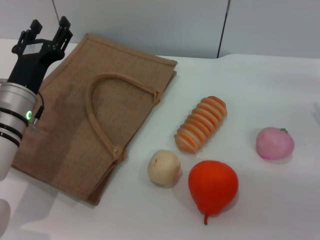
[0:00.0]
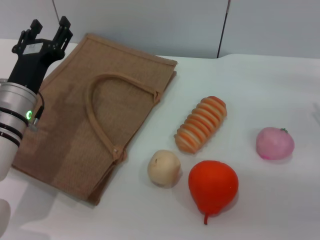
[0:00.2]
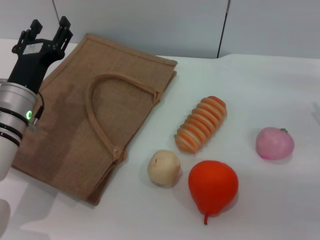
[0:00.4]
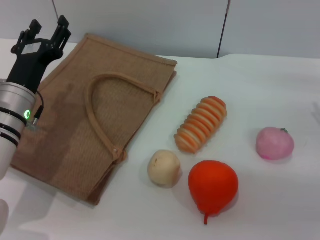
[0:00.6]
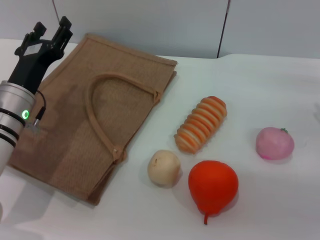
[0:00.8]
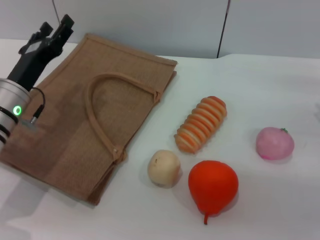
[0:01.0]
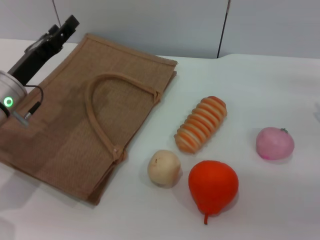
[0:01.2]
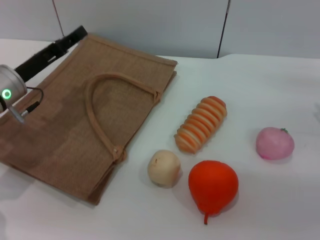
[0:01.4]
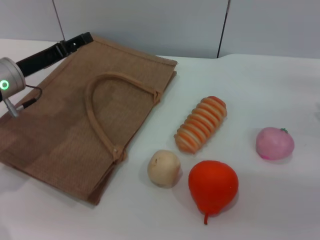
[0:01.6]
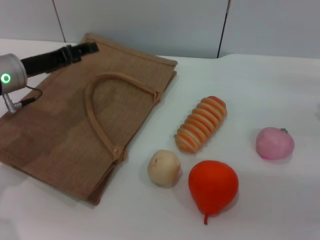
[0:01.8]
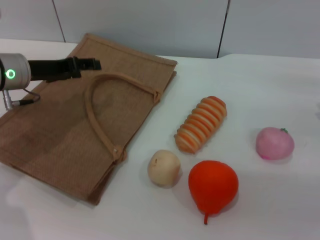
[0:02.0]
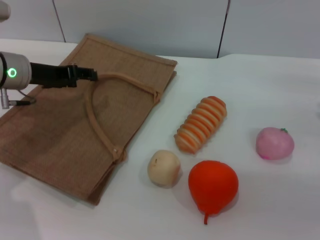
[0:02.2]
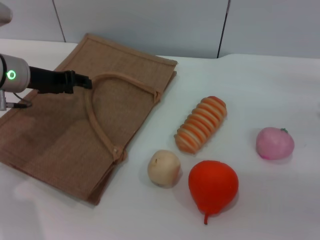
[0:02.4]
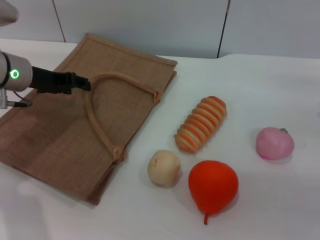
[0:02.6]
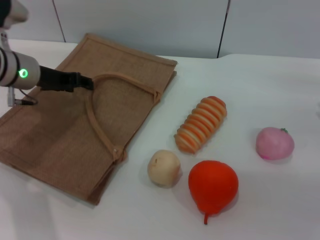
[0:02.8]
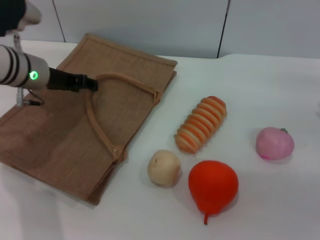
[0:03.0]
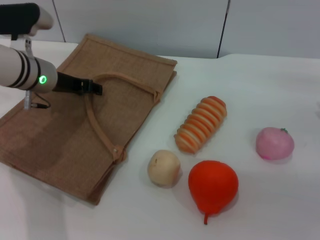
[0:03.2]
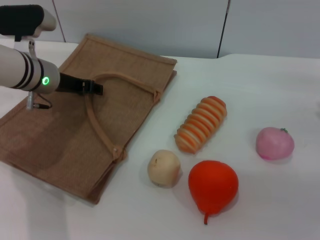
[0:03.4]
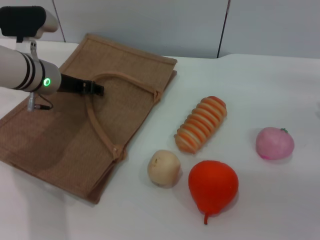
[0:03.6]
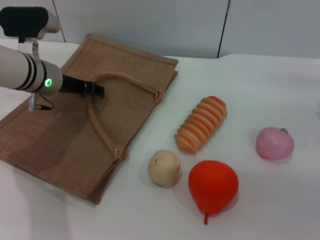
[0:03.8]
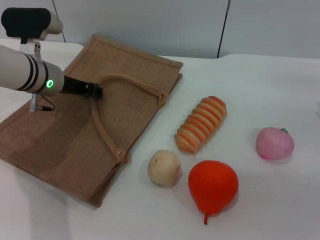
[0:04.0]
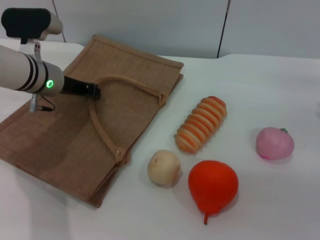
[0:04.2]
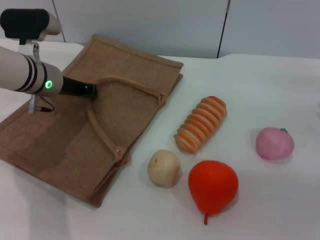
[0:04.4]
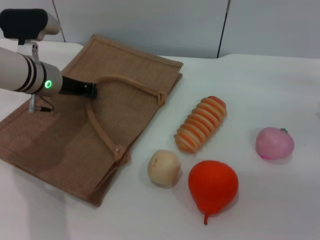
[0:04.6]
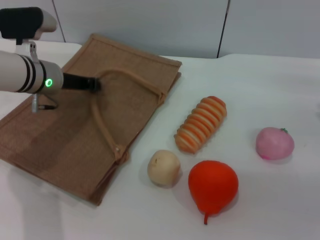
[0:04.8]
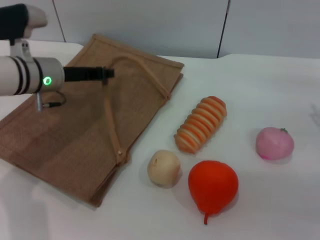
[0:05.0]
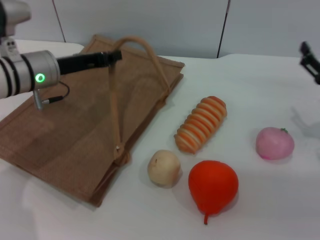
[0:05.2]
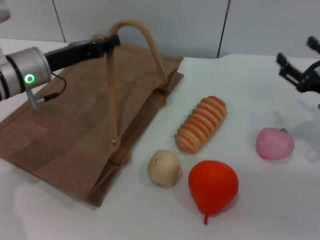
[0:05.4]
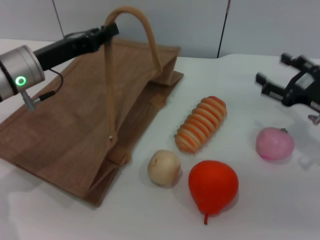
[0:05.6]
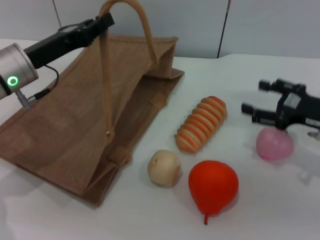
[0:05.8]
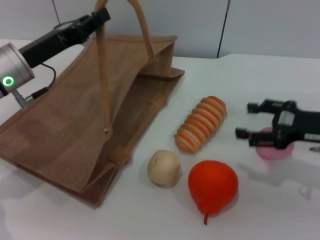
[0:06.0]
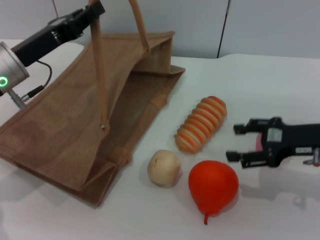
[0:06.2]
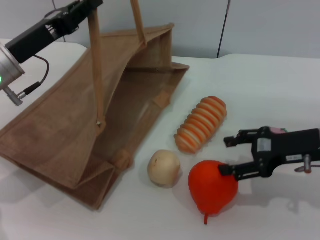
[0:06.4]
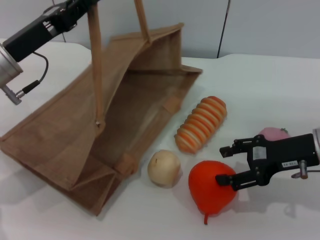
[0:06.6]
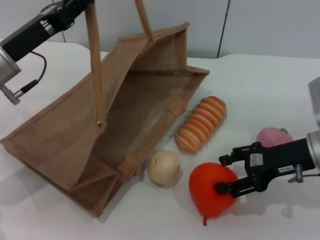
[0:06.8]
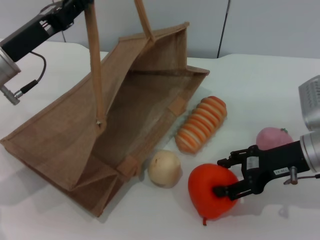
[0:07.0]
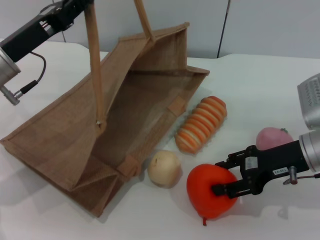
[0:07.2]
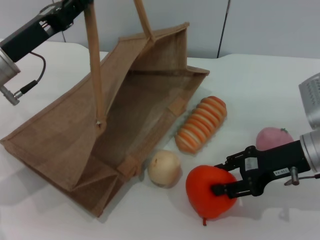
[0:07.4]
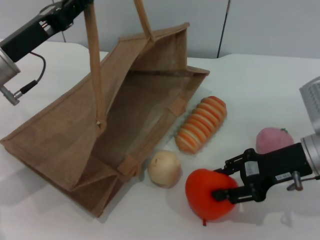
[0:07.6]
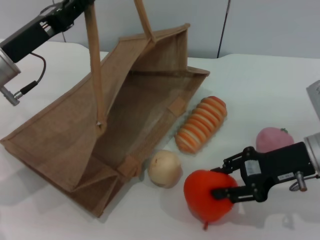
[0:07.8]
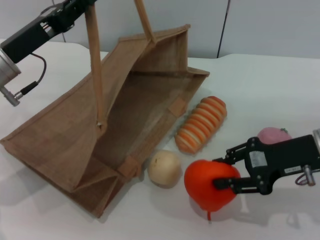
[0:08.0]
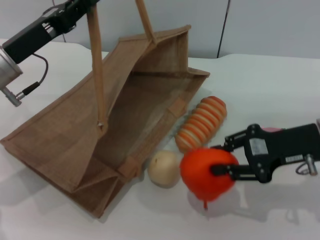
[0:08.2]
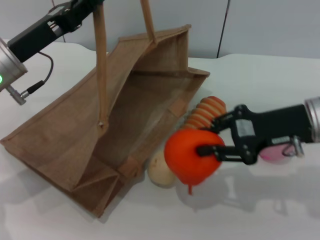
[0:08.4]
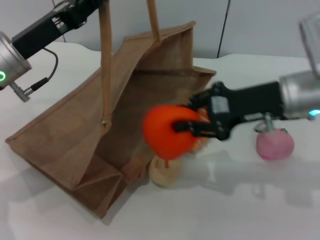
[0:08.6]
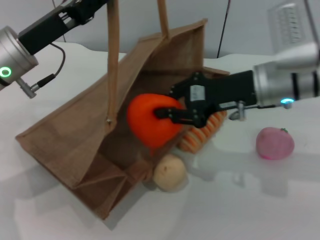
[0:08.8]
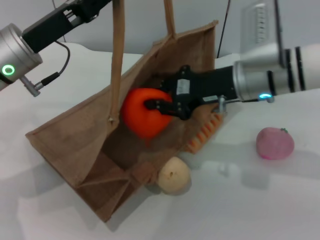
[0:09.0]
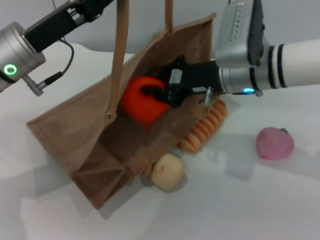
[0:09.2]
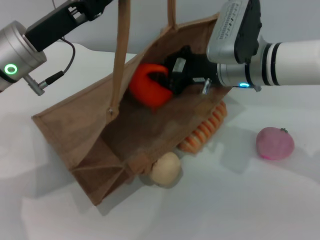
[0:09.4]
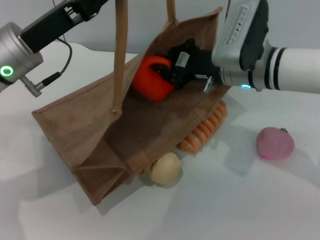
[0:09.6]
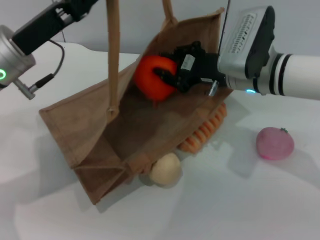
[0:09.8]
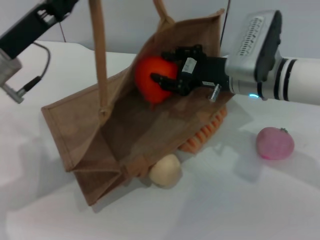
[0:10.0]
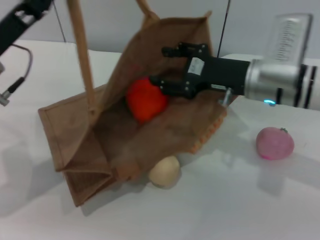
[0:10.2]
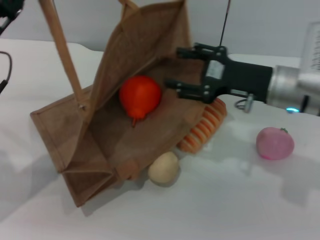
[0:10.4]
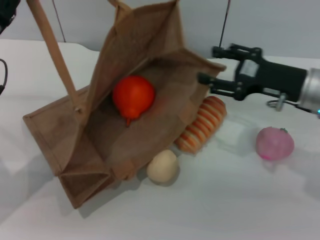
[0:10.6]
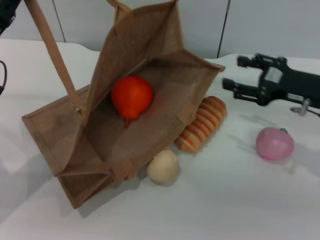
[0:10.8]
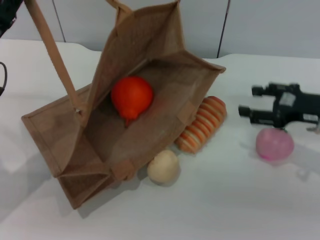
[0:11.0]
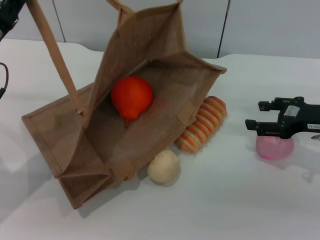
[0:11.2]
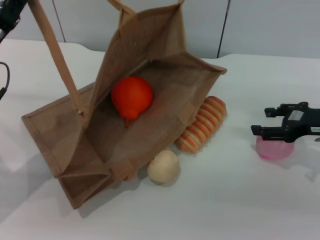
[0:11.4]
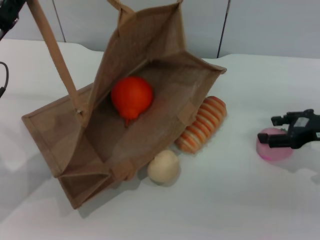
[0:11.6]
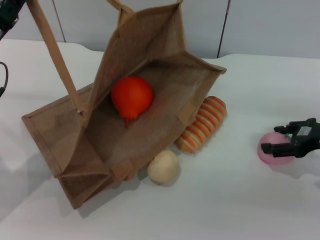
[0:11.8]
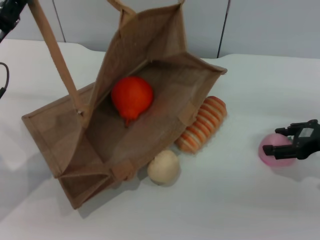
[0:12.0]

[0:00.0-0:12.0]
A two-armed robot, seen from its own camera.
Task of the whole recording: pick up the orange and peach from the table and place it in the brown handbag.
Step, 0:00.0 to 0:05.2: Lift the woven bag with the left gripper to open it.
Step, 0:05.4 to 0:08.0: Pick up the orange with the right gripper.
Step, 0:08.2 to 0:10.0: Place the orange into the woven bag with the right gripper.
0:00.0 to 0:01.6: The left gripper ends up approximately 5 cm from where it was.
0:01.6 to 0:03.0: The left gripper moves approximately 5 cm.
0:03.0 to 0:04.4: The left gripper closes its fingers.
0:04.4 to 0:06.0: The left gripper moves backward, about 5 cm.
0:06.0 to 0:07.6: The right gripper moves to the left, approximately 5 cm, and closes up.
0:07.6 to 0:09.0: The right gripper moves to the left, forward and upward, about 15 cm, and closes.
0:09.0 to 0:10.4: The right gripper goes about 5 cm to the right, and opens. The left gripper travels to the left by some 5 cm.
0:10.4 to 0:12.0: The right gripper is displaced to the right by some 15 cm.

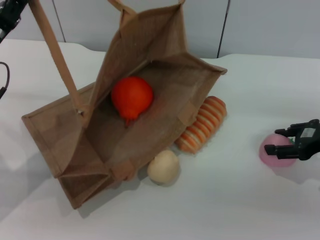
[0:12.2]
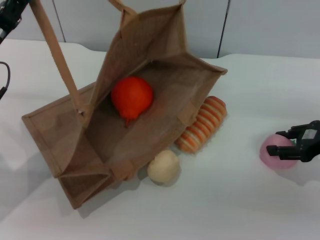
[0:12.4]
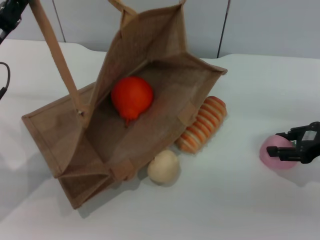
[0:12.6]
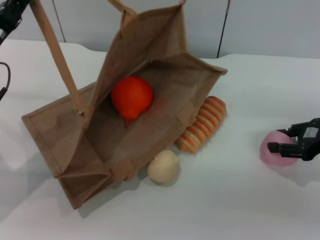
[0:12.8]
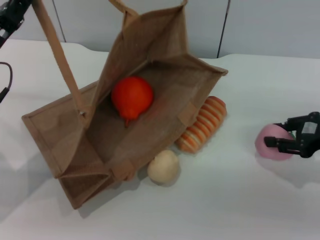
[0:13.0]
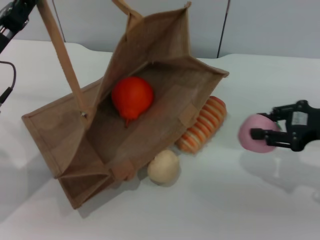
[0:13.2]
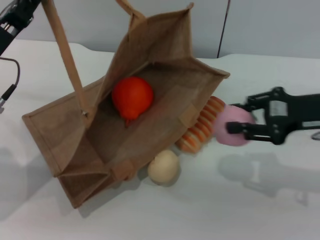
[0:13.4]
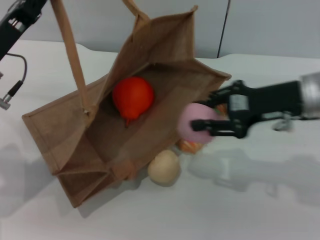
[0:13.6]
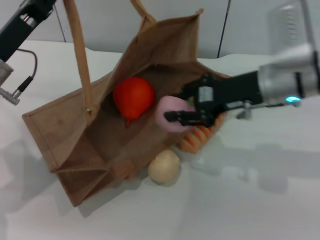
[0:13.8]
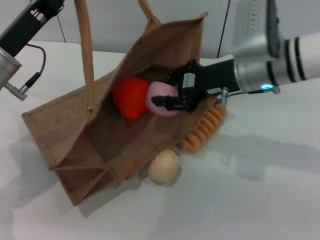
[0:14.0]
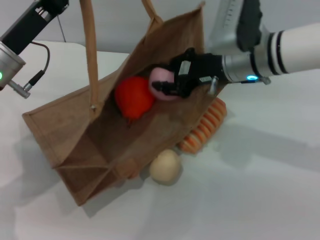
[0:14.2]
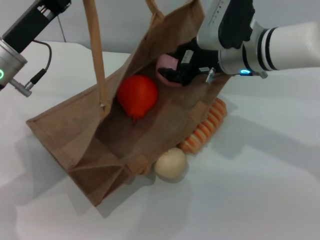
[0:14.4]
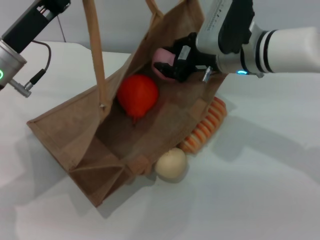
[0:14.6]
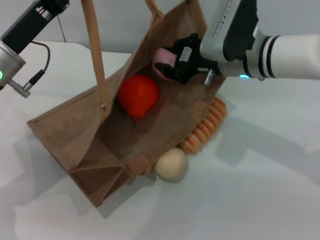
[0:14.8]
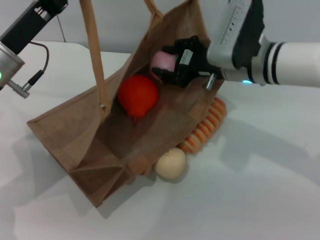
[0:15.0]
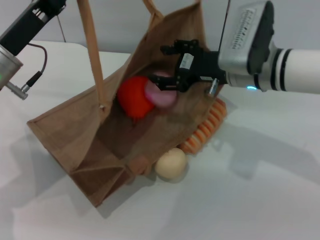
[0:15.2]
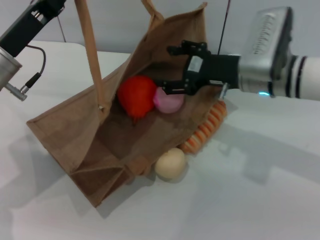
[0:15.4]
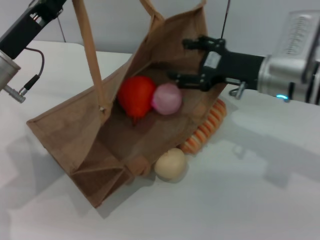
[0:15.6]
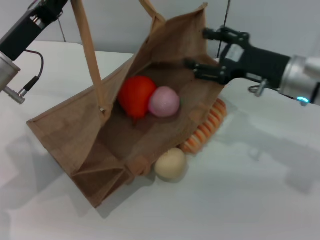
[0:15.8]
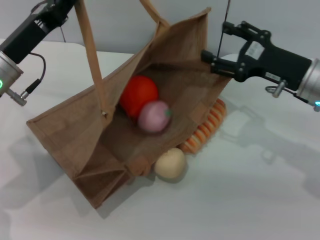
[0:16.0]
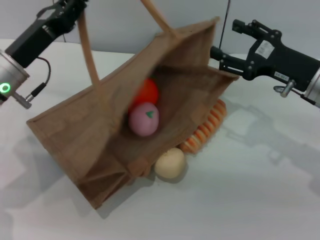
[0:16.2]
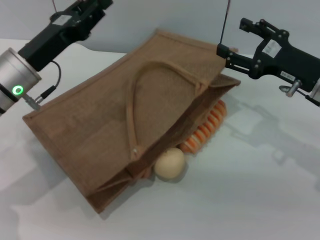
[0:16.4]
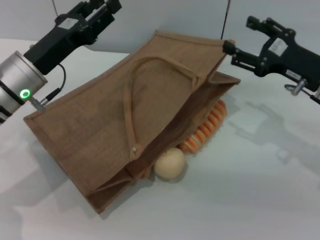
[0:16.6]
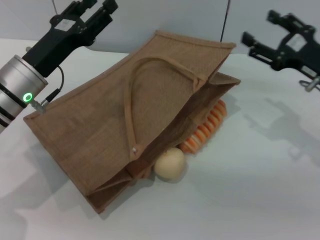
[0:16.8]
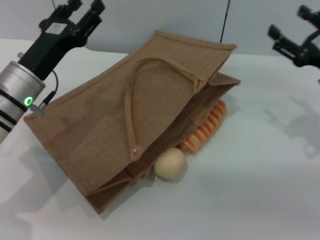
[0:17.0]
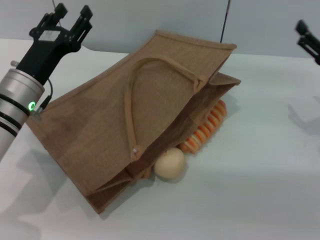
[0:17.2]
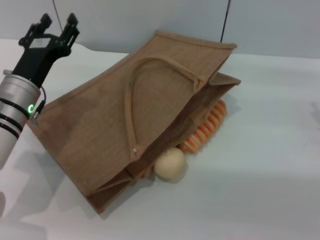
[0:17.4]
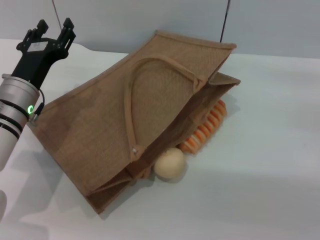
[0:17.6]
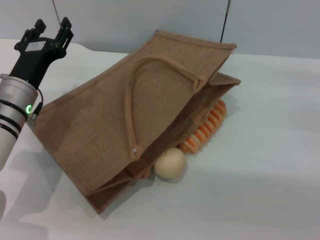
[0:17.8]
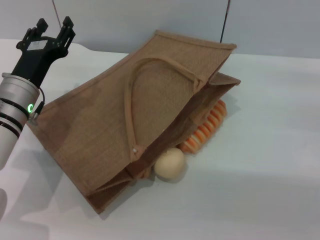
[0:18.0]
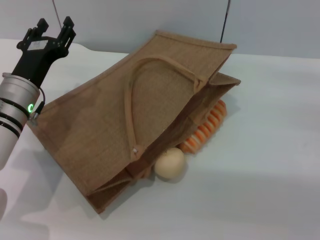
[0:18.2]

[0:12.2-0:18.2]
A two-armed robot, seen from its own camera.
Task of the whole recording: pick up the orange and peach from the table and place it in the brown handbag.
Step, 0:13.2 to 0:15.4: Place the peach into the woven bag with the right gripper.
Step, 0:15.6 to 0:16.6: Lower the woven bag with the left gripper to close it.
0:12.2 to 0:13.8: The right gripper goes some 15 cm to the left, and closes its fingers.
0:15.2 to 0:16.6: The right gripper goes roughly 10 cm to the right, and opens.
0:16.6 to 0:18.2: The right gripper shifts approximately 10 cm to the right. Meanwhile the left gripper ends up about 5 cm from where it was, and opens its fingers.

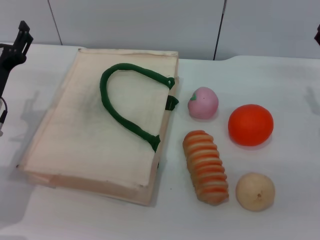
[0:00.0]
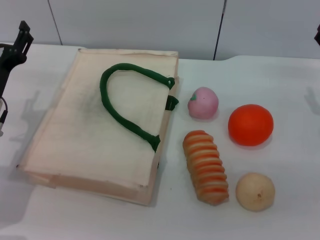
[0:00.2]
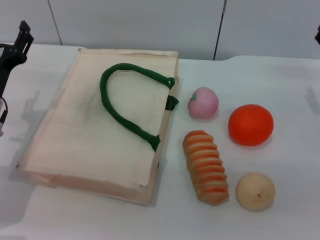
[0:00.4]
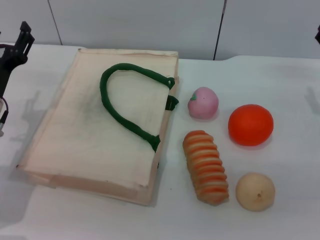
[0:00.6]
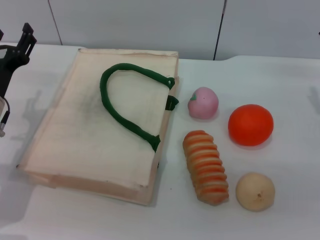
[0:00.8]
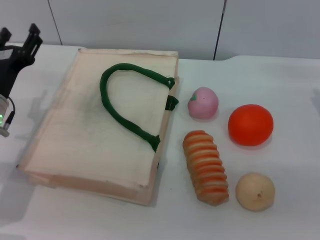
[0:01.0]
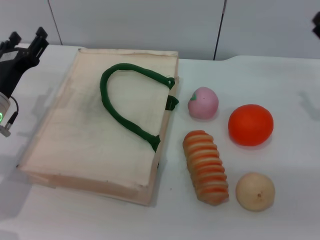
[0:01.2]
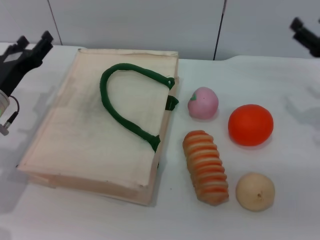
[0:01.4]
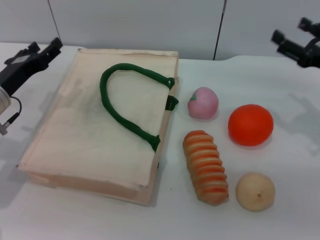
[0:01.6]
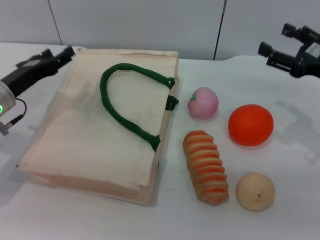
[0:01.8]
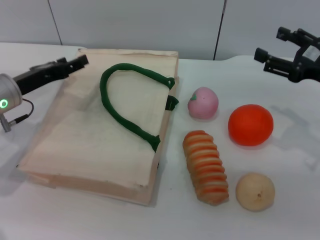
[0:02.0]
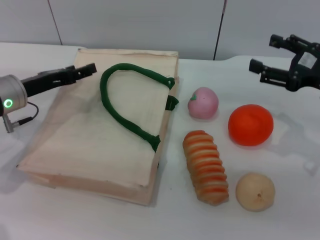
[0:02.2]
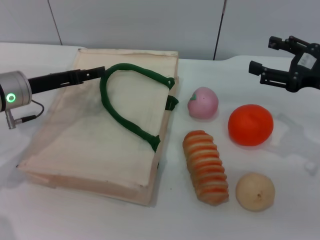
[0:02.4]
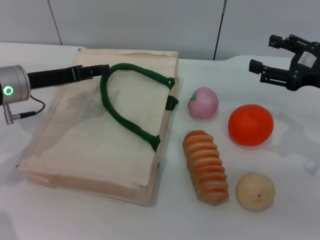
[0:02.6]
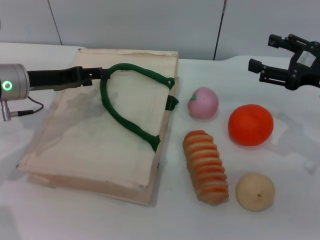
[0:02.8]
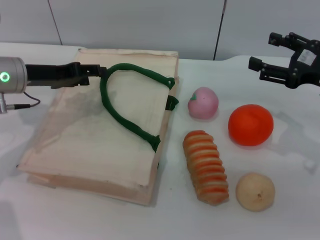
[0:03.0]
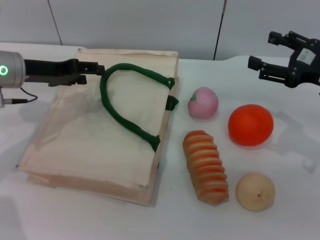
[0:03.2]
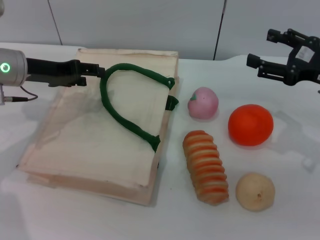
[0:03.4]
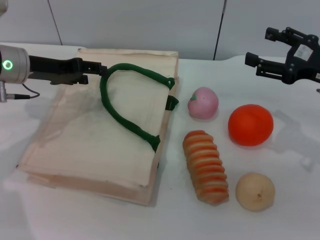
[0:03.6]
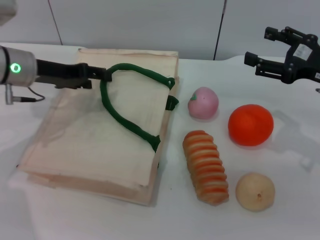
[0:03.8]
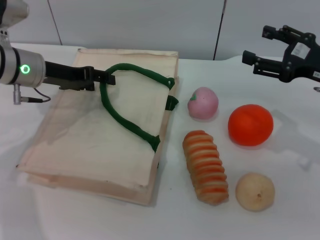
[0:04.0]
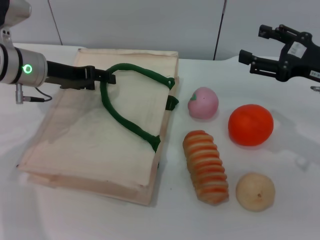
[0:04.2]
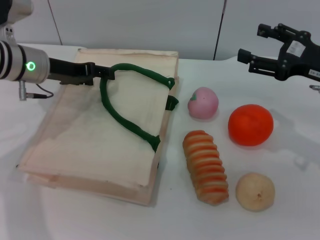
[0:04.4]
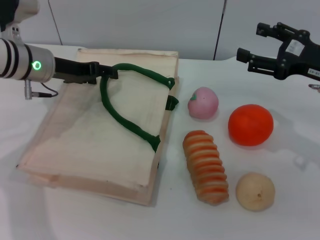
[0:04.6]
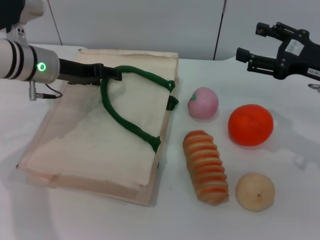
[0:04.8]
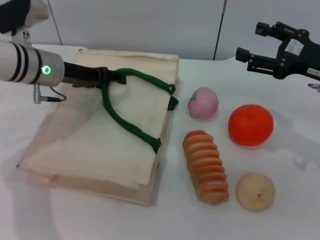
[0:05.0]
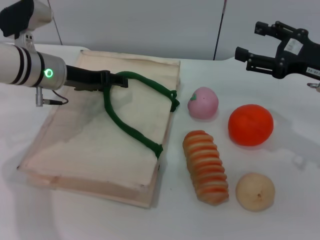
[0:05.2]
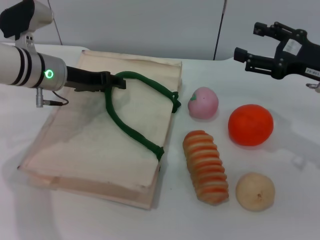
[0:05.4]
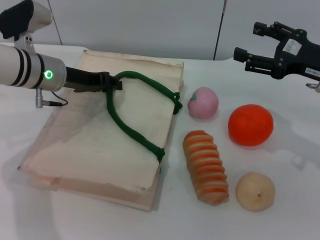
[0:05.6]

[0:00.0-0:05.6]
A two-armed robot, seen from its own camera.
Task of the whole recording: pick up the orange and peach from the table and place it in the white handbag.
0:01.4 to 0:02.8: The left gripper changes place by roughly 5 cm.
0:02.8 to 0:04.2: The grippers make only small movements.
0:04.2 to 0:05.6: The grippers make only small movements.
